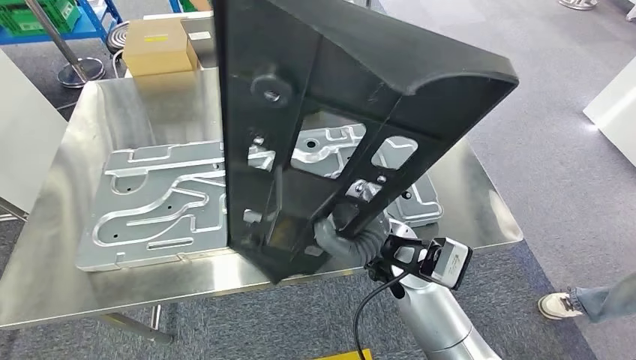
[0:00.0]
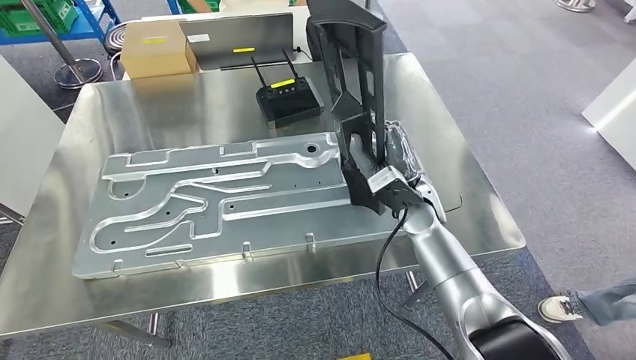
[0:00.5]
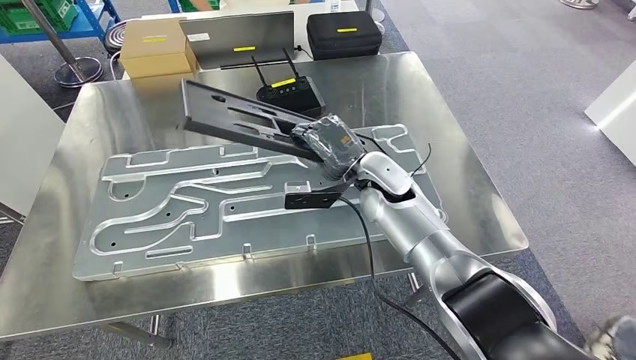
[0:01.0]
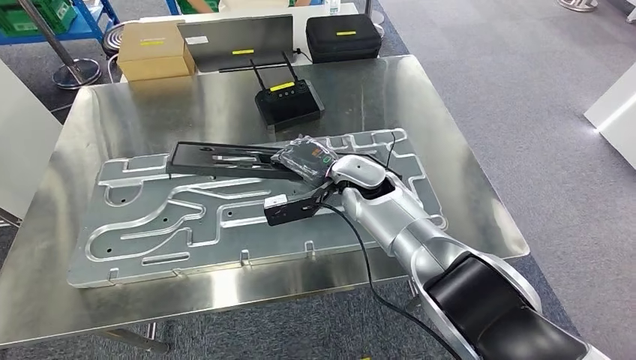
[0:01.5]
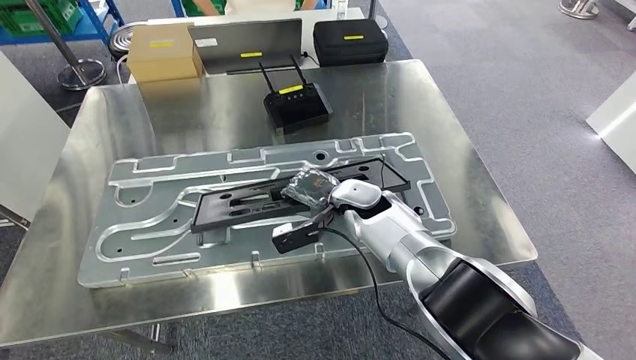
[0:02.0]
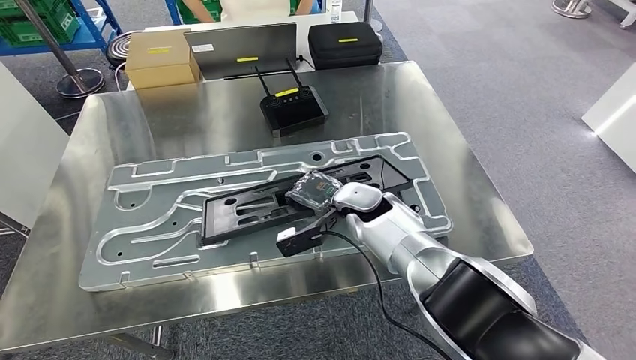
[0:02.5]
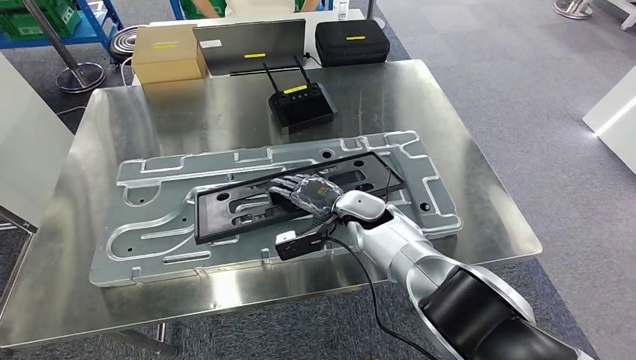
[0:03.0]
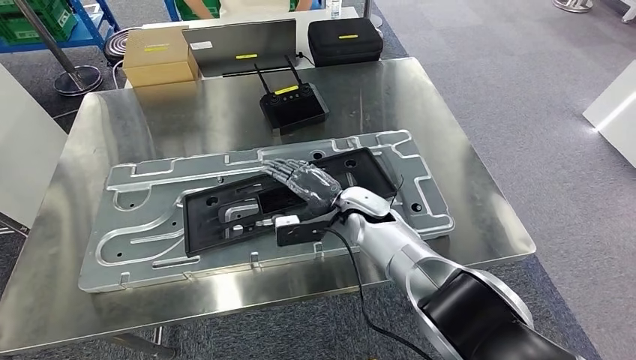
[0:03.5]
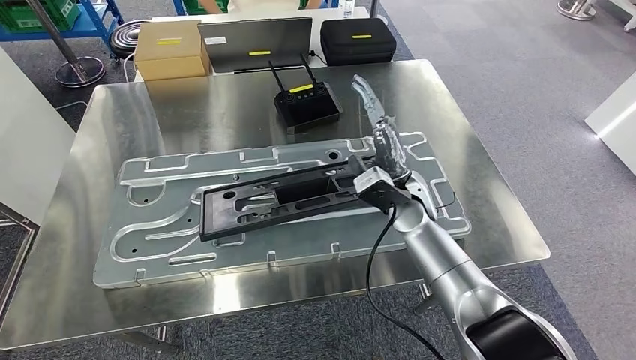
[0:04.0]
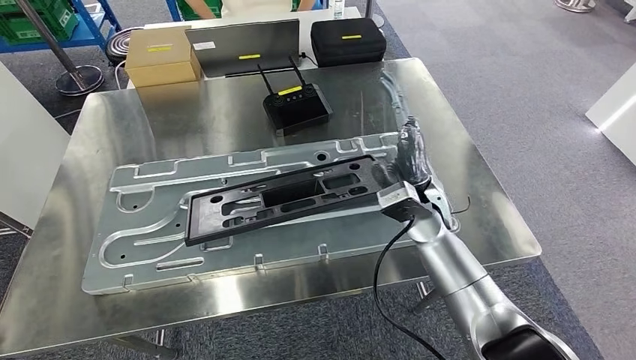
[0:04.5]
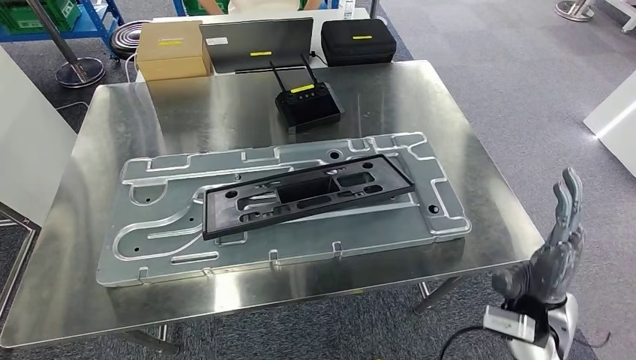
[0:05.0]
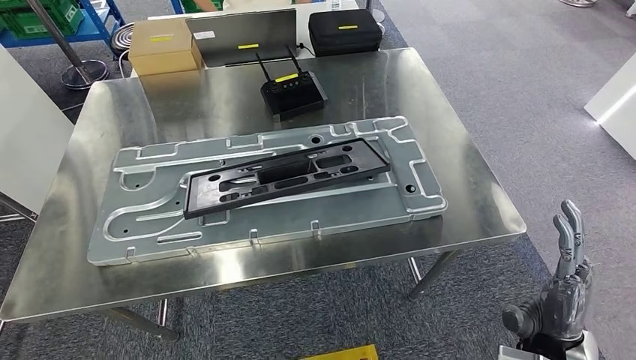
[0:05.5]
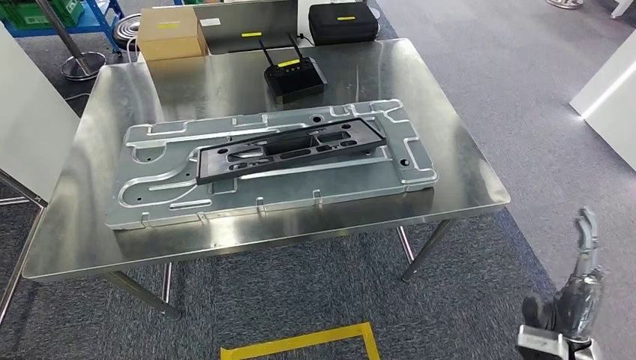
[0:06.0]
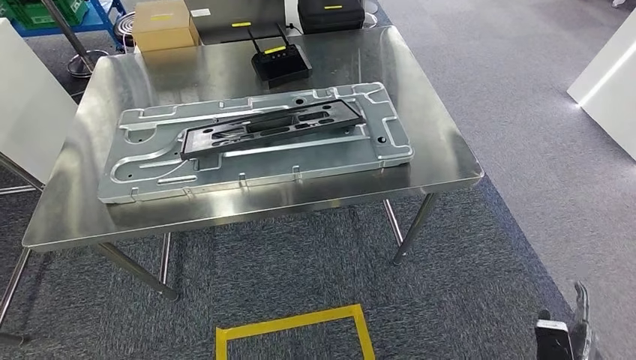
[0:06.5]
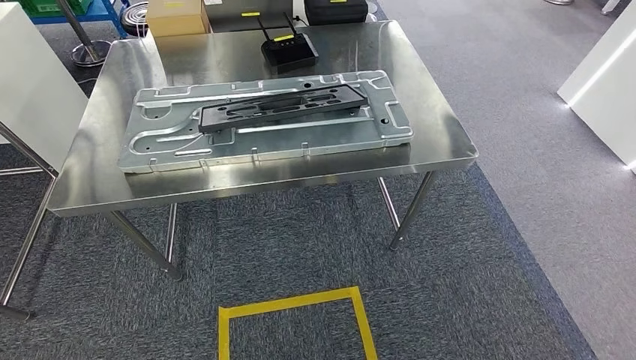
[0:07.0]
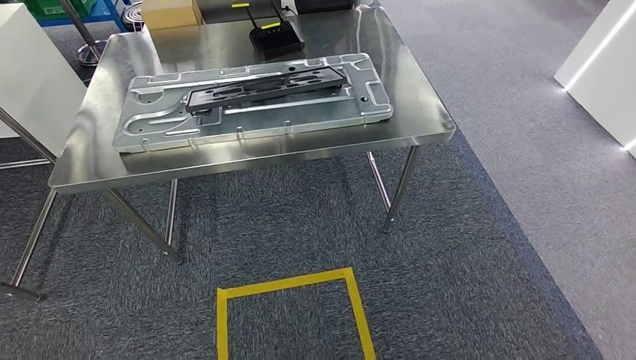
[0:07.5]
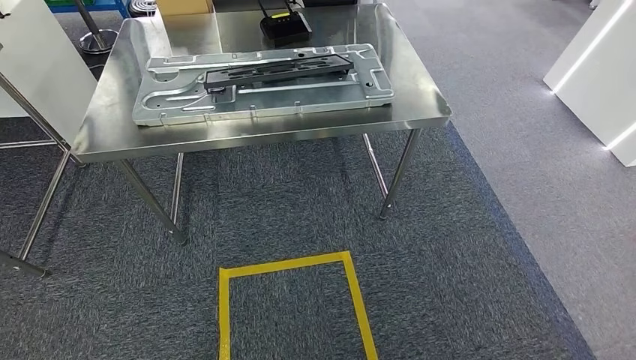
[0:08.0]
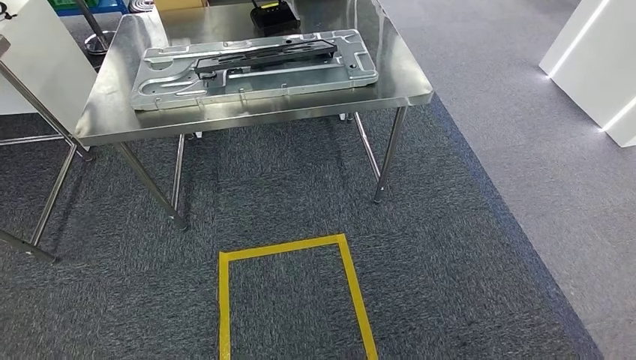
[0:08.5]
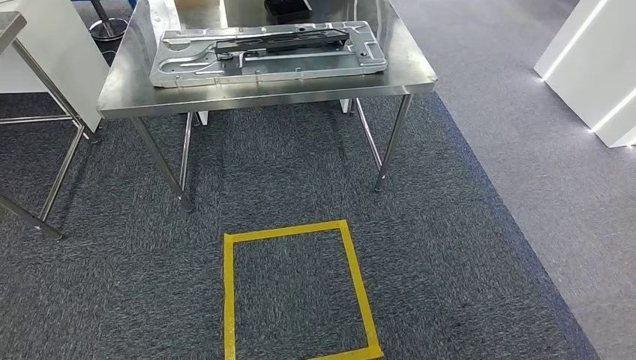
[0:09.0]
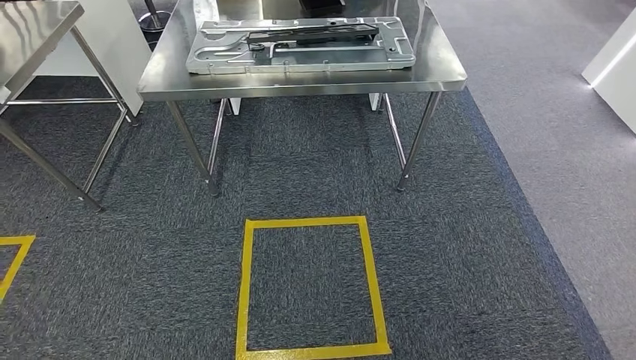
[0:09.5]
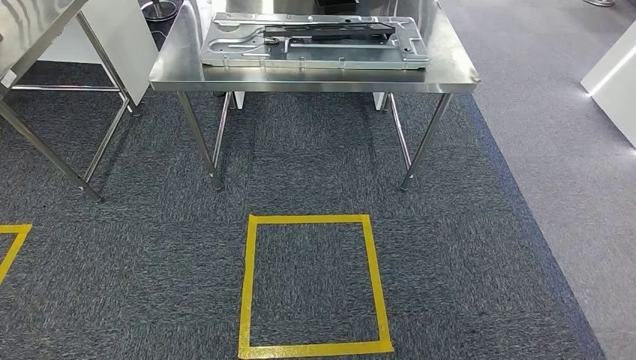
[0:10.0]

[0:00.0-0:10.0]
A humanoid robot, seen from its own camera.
Step, 0:00.5 to 0:05.5: Insert the large material into the corresponding slot on the workbench.
Step, 0:07.0 to 0:10.0: Move to the initial position of the shelf.

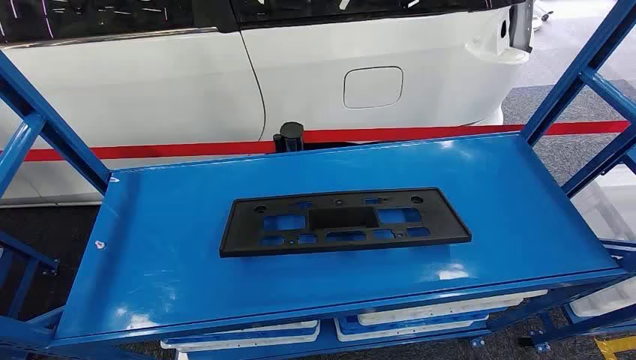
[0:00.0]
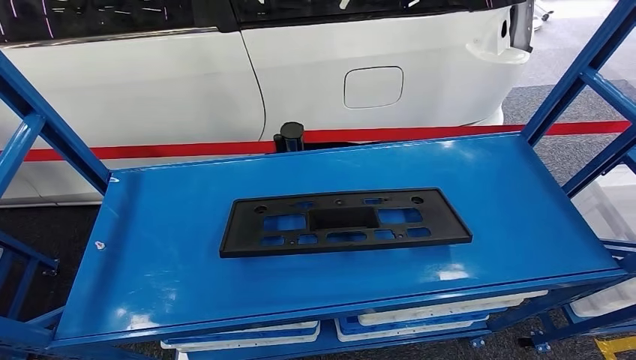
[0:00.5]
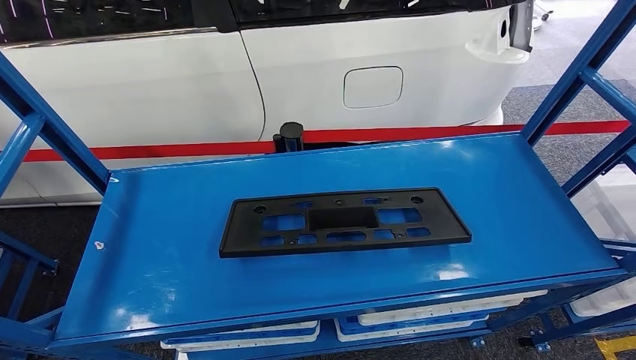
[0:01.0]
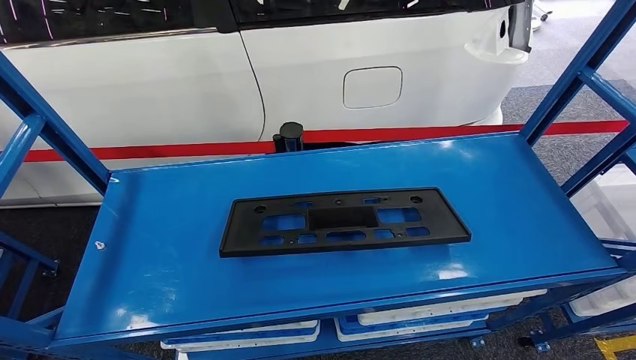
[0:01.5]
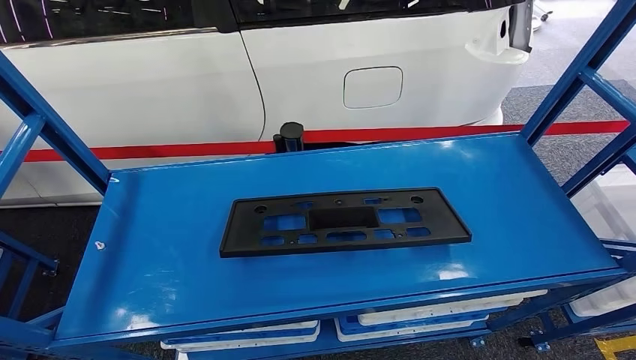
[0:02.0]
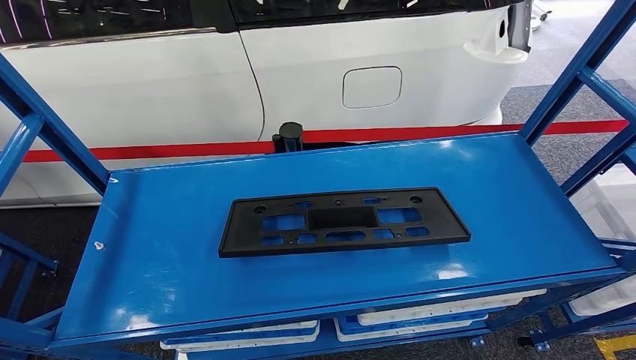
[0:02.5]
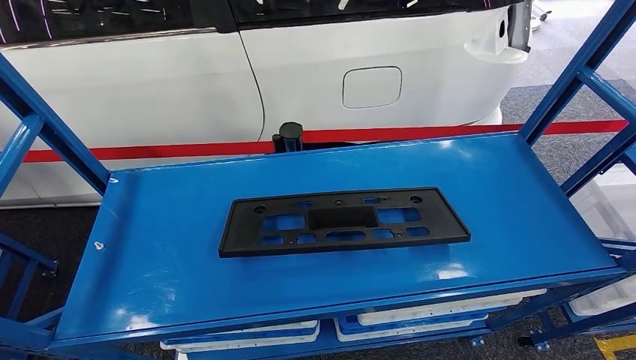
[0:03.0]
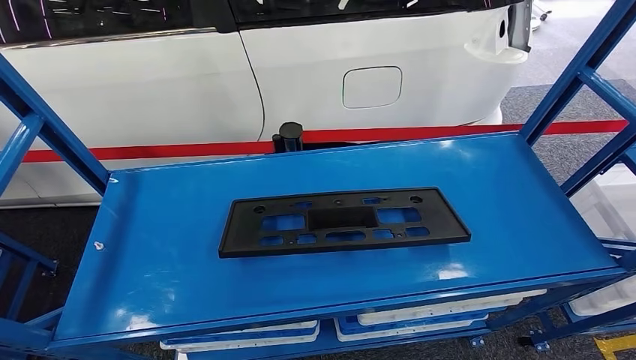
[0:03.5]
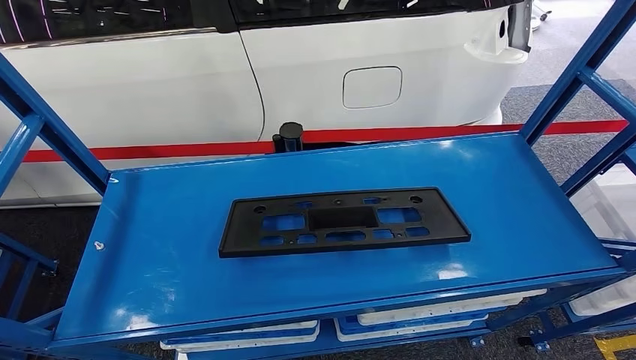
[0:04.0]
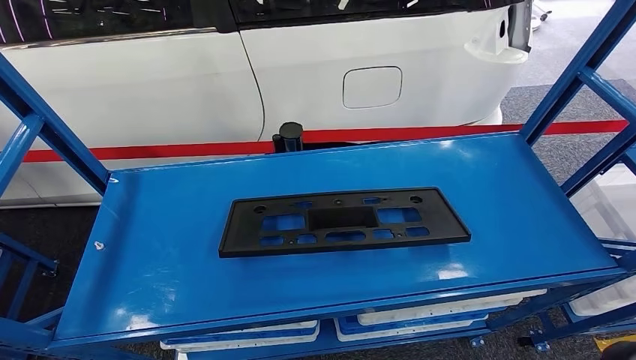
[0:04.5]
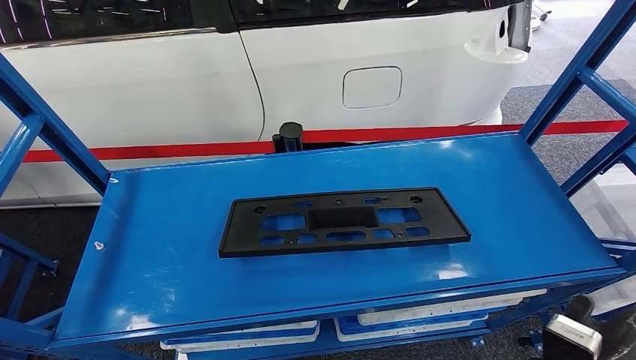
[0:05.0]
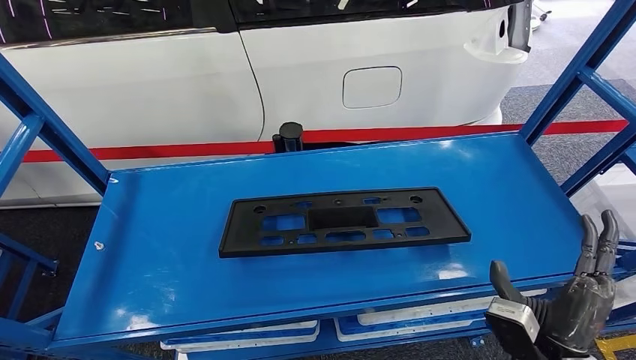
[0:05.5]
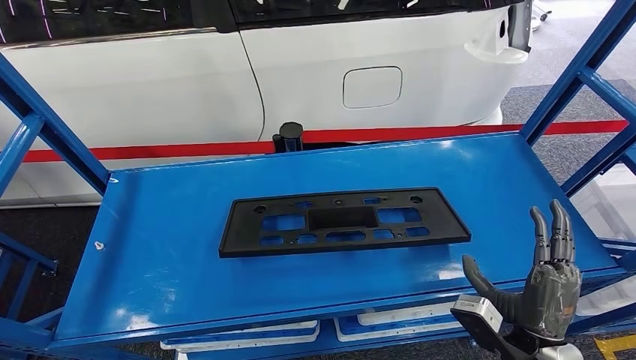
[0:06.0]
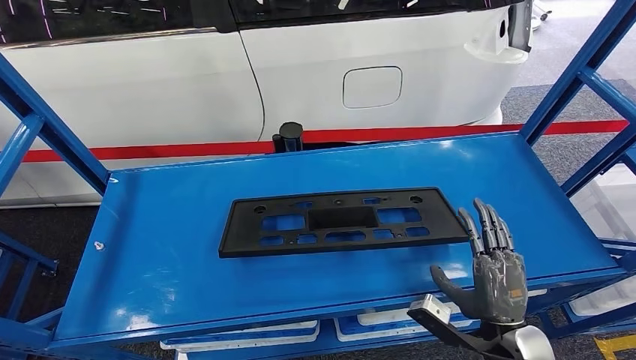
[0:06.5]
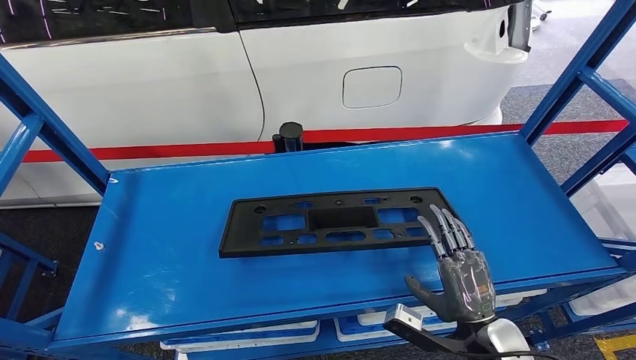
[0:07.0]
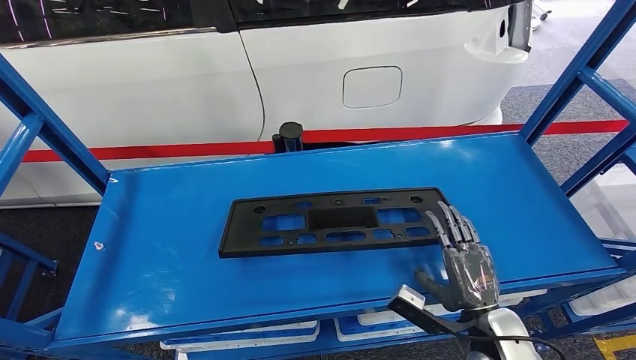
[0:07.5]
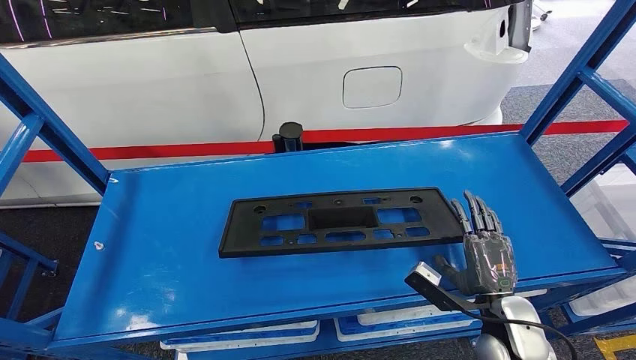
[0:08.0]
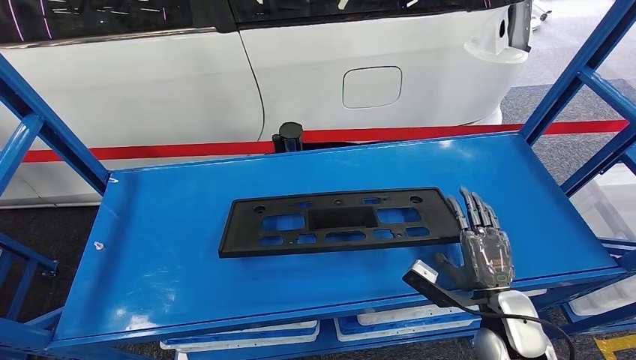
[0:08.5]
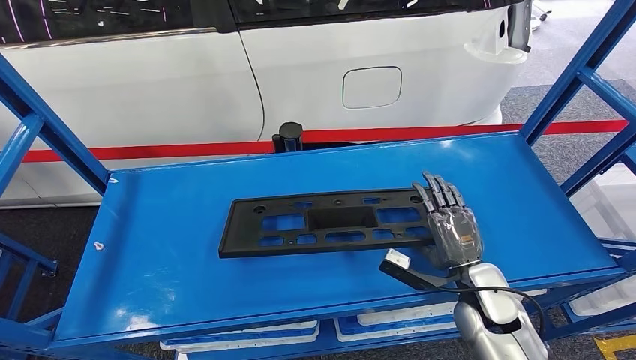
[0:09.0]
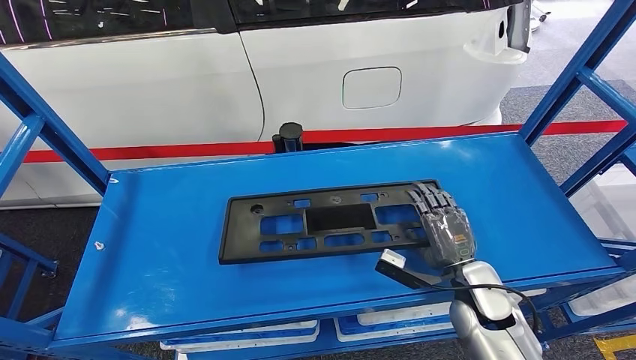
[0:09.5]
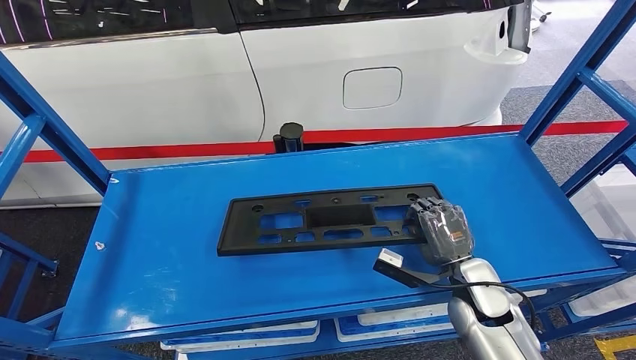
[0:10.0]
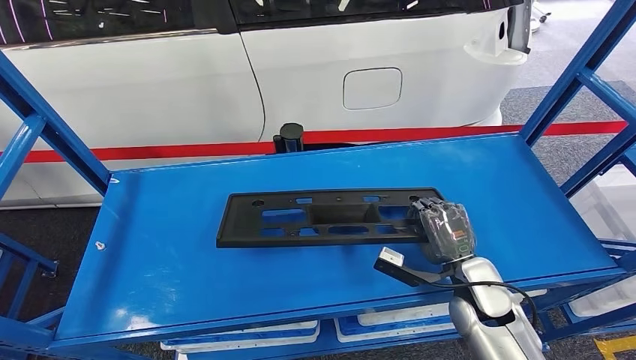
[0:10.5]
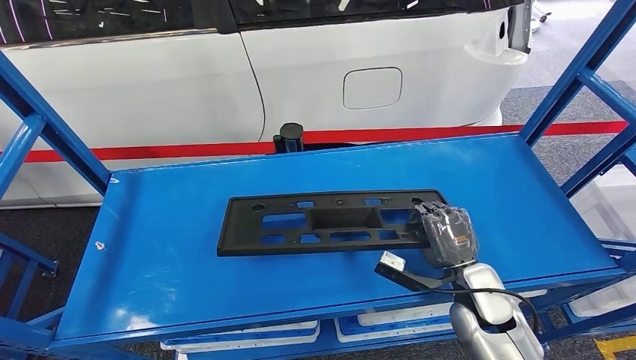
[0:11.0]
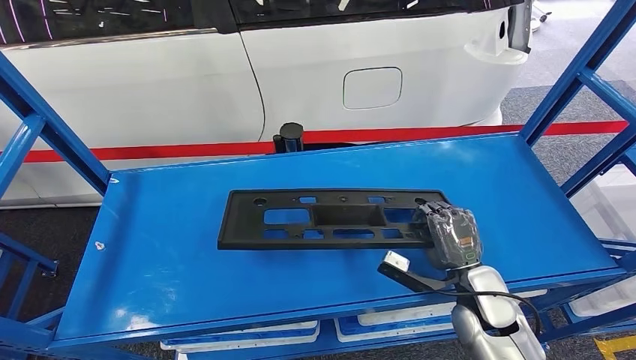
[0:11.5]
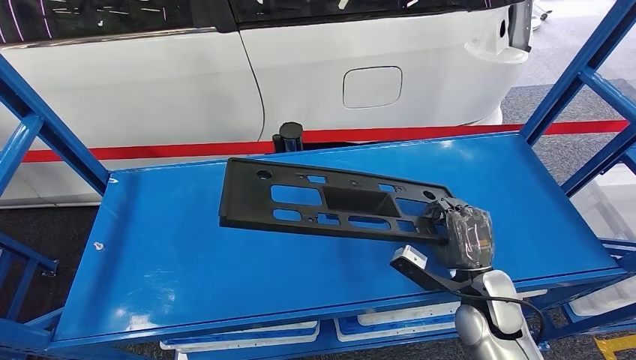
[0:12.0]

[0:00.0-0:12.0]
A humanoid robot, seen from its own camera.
0:02.0 to 0:04.0: The right hand is displaced upward and forward by roughly 20 cm.
0:04.0 to 0:06.0: The right hand is displaced to the left by roughly 5 cm.
0:06.0 to 0:08.0: The right hand heads forward, covering roughly 5 cm.
0:08.0 to 0:10.0: The right hand travels forward by approximately 5 cm.
0:10.0 to 0:12.0: The hands stay close to where they were, moving slightly.
